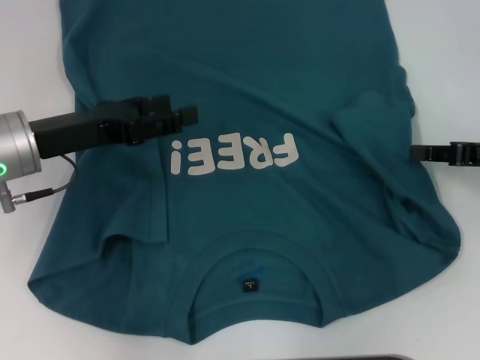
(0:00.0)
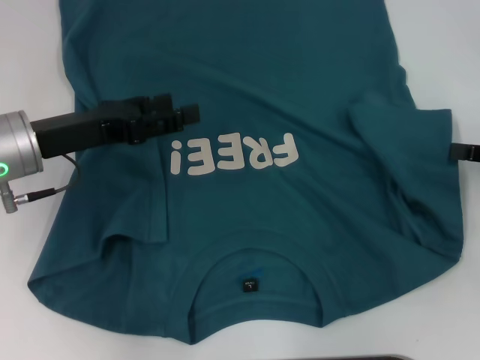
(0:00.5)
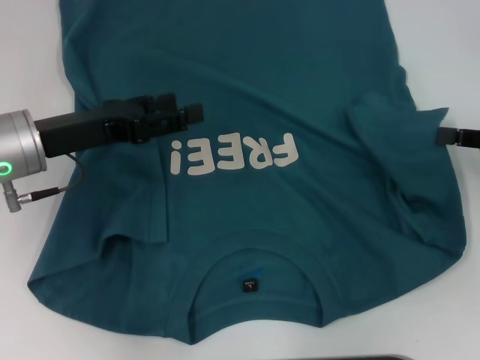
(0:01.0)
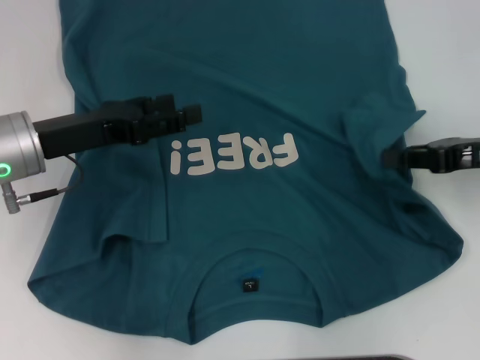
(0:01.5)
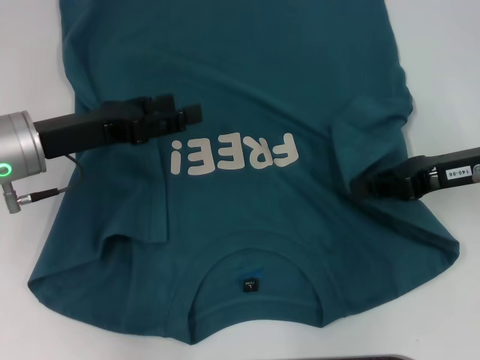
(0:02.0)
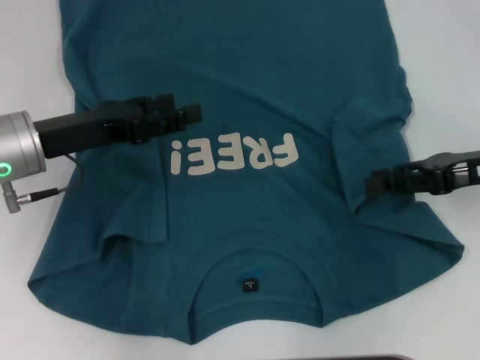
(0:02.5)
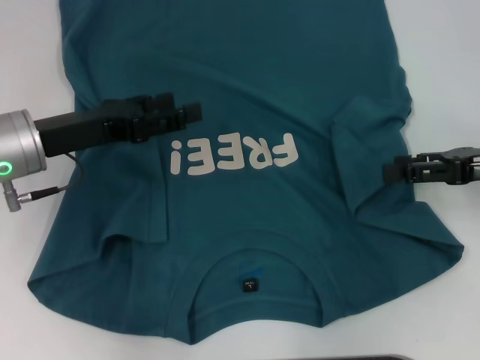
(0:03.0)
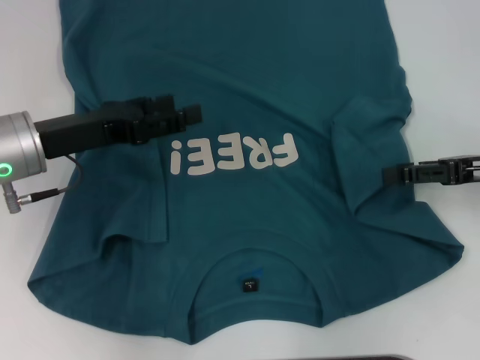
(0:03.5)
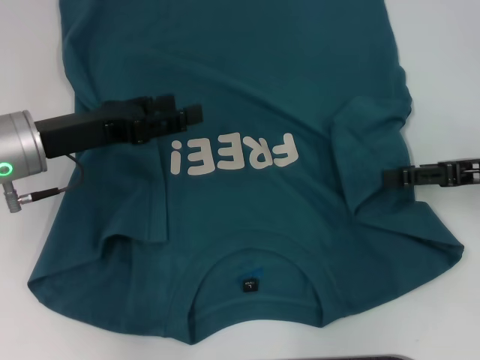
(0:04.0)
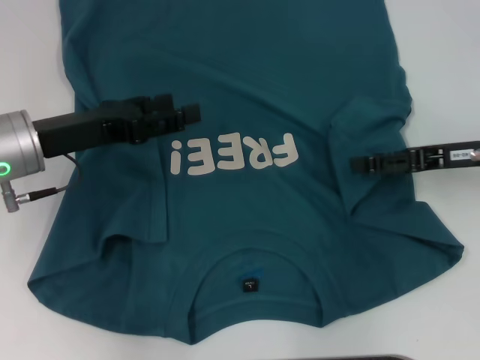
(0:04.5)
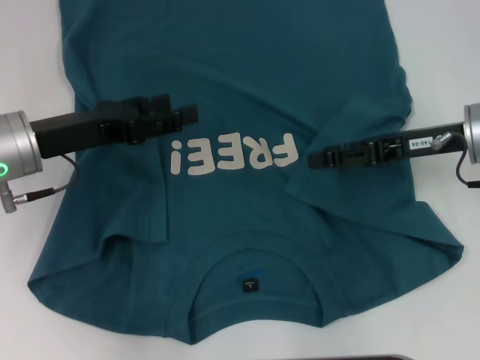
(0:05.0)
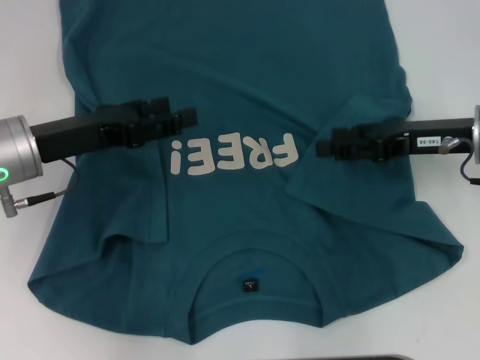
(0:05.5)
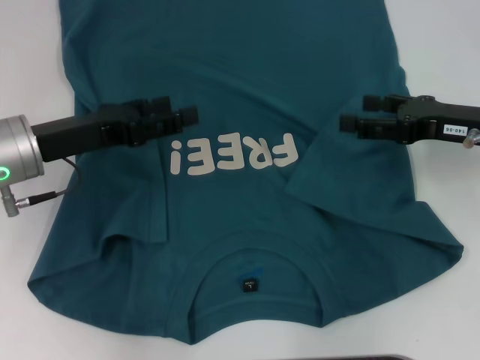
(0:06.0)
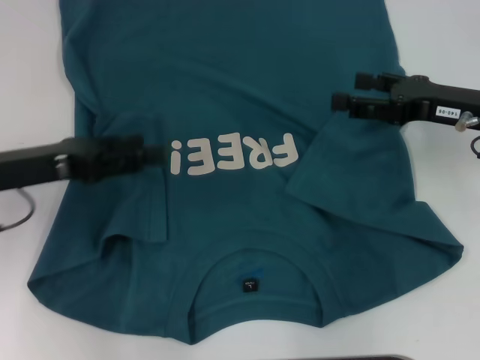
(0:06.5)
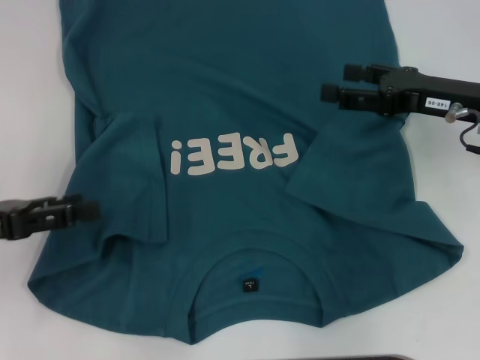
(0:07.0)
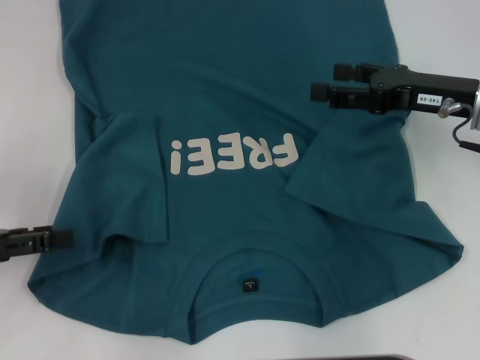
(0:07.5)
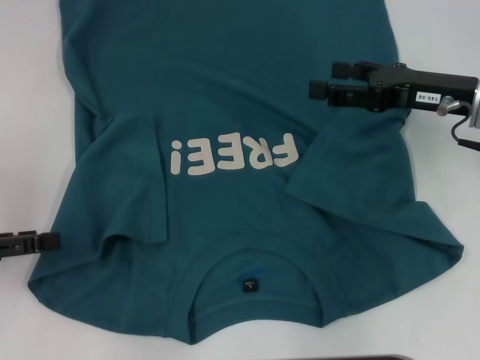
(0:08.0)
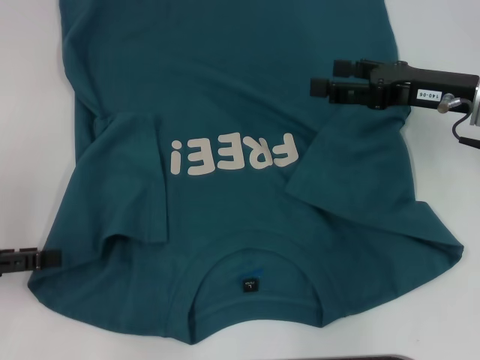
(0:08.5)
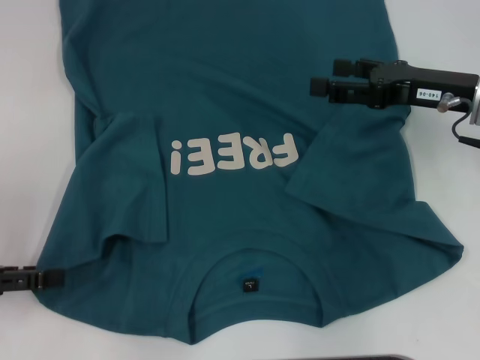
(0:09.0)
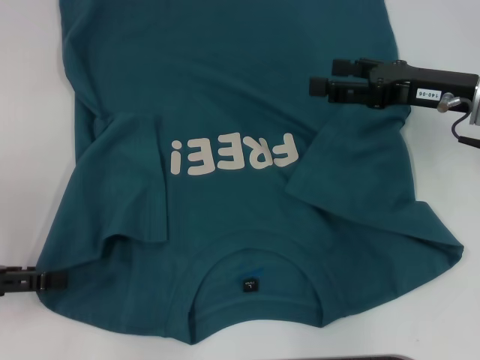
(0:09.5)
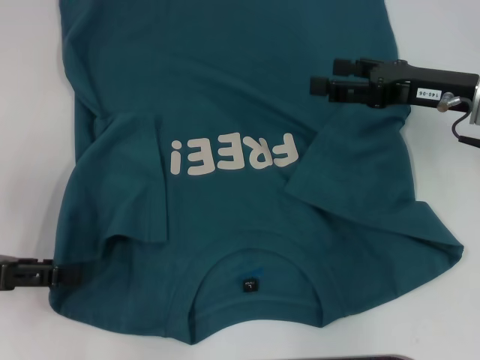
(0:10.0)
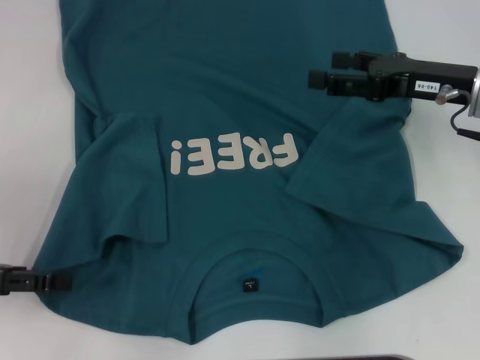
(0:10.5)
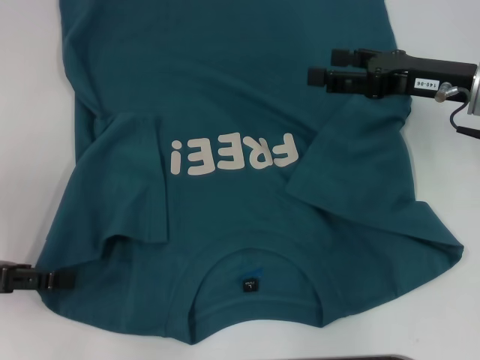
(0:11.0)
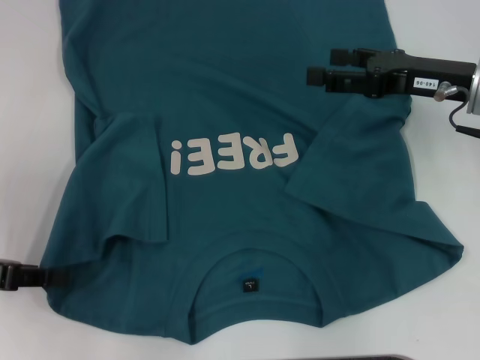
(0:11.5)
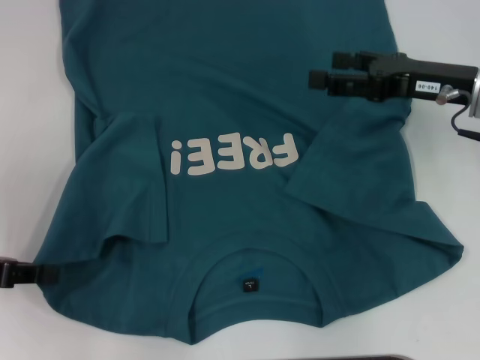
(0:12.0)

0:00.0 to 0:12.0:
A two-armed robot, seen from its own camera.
Step, 0:00.0 to 0:05.5: Fold the bottom right sleeve to the right.
0:00.0 to 0:02.0: The right gripper travels to the left by roughly 5 cm.
0:02.0 to 0:04.0: The right gripper opens up.
0:06.0 to 0:08.0: The left gripper is displaced to the left and backward by about 15 cm.
0:08.0 to 0:10.0: There are only small adjustments of the grippers.
0:10.0 to 0:12.0: The left gripper closes its fingers.

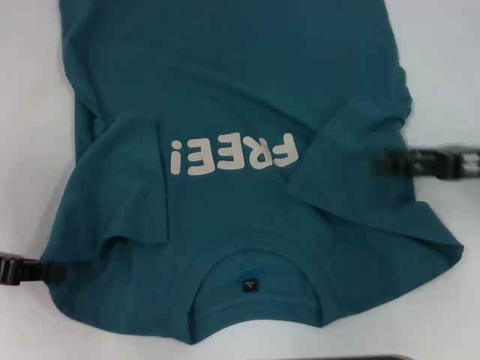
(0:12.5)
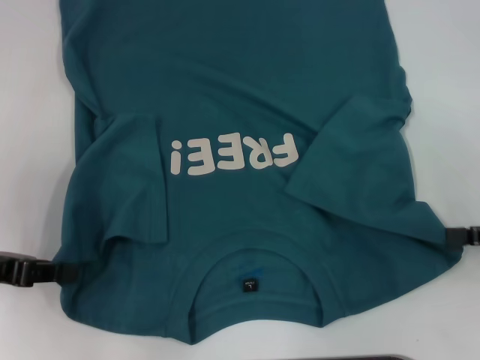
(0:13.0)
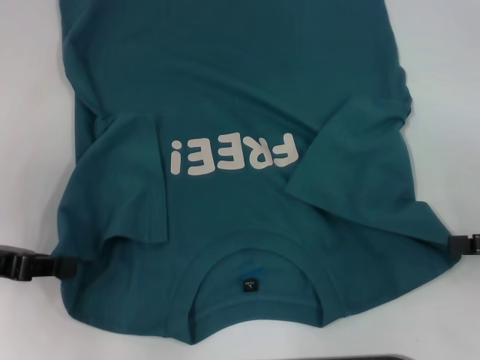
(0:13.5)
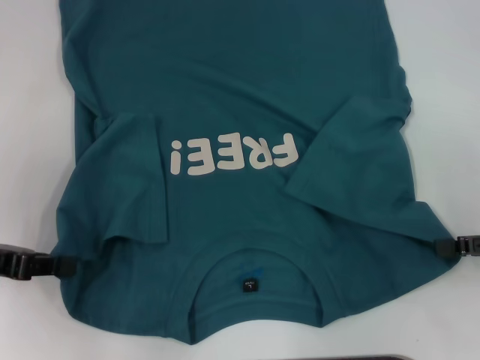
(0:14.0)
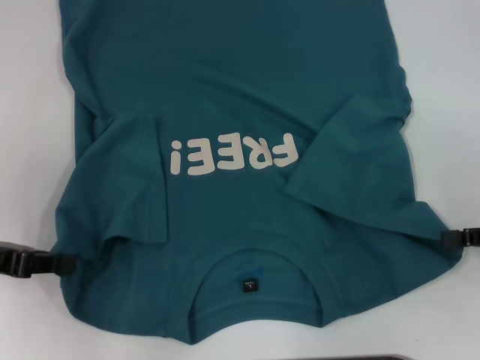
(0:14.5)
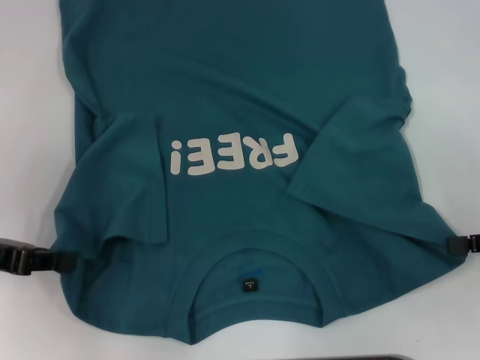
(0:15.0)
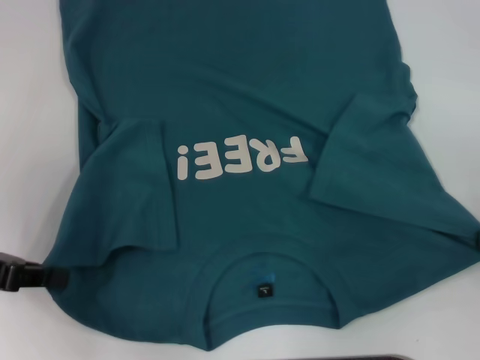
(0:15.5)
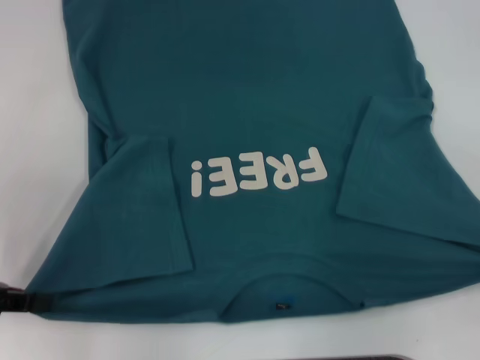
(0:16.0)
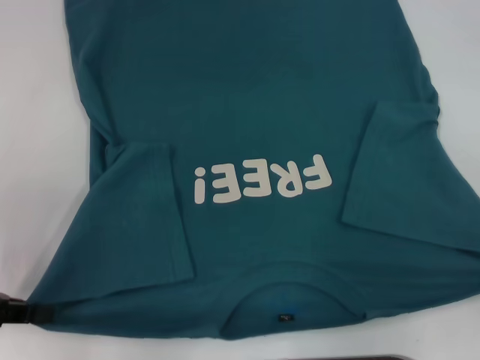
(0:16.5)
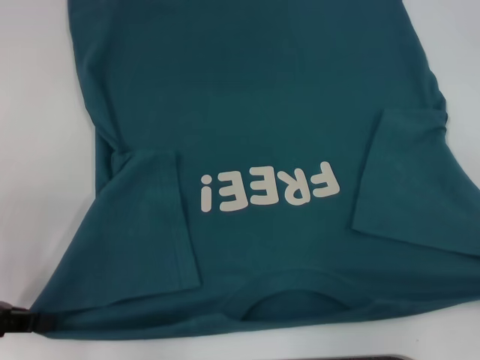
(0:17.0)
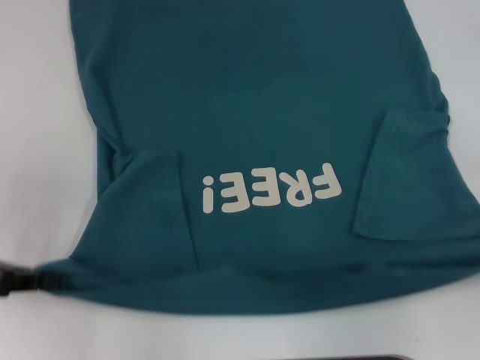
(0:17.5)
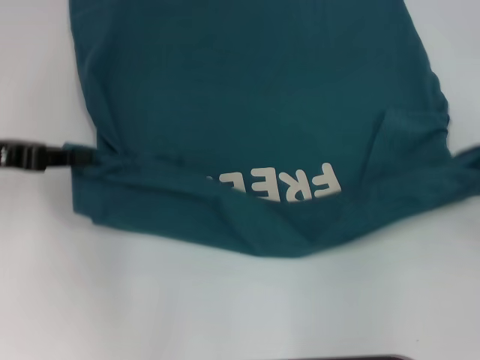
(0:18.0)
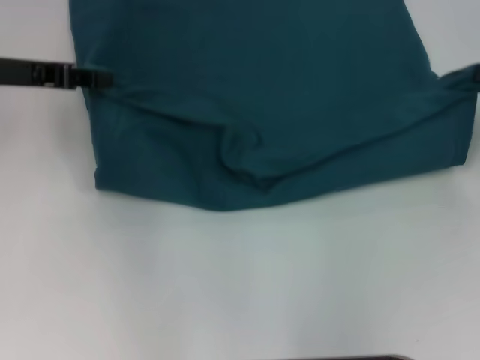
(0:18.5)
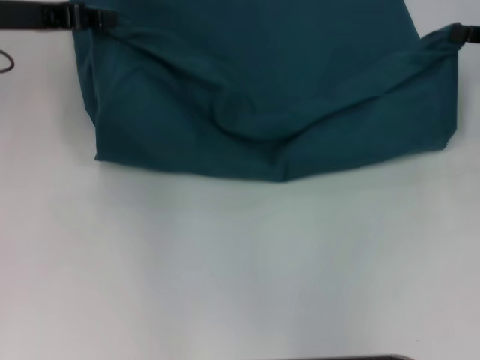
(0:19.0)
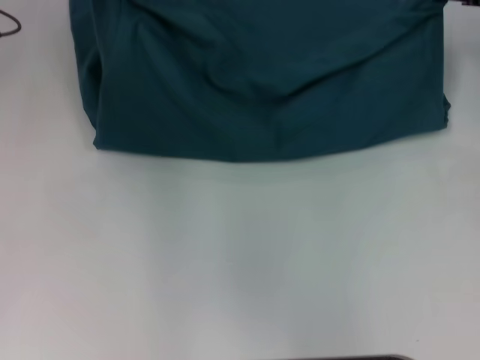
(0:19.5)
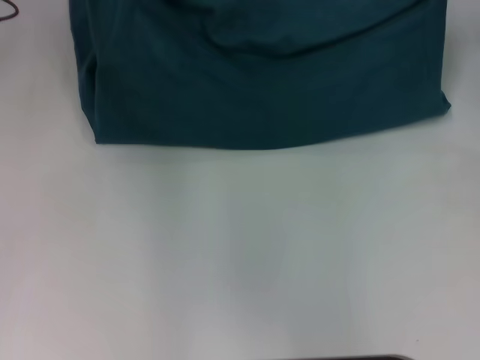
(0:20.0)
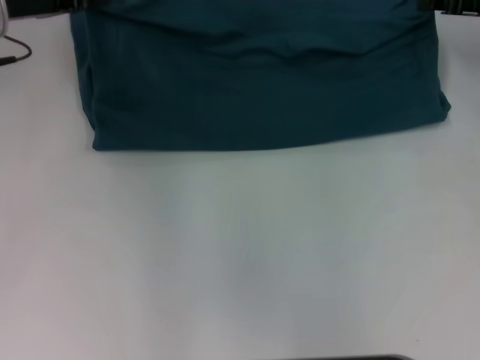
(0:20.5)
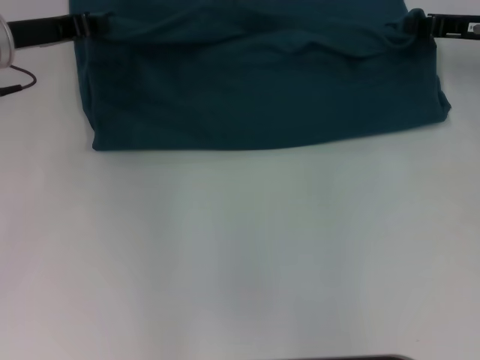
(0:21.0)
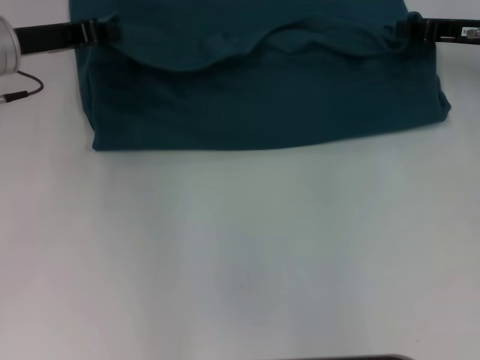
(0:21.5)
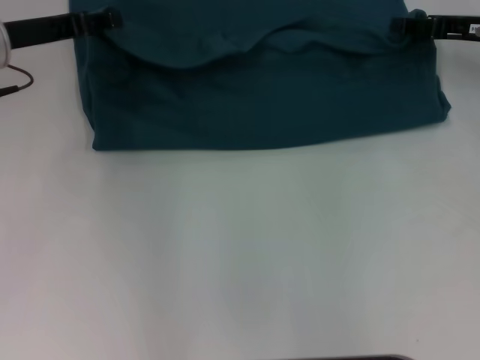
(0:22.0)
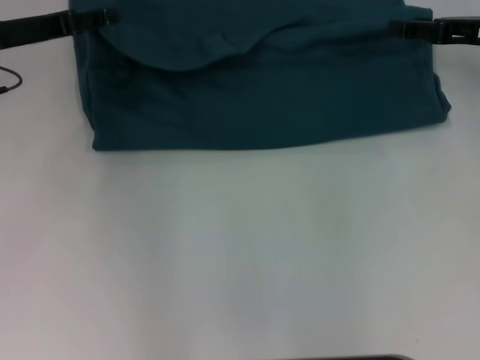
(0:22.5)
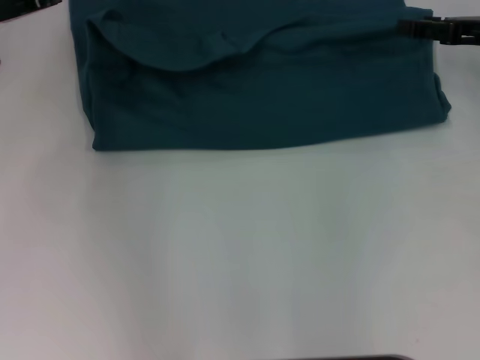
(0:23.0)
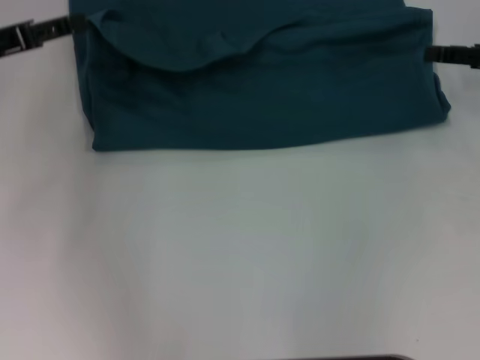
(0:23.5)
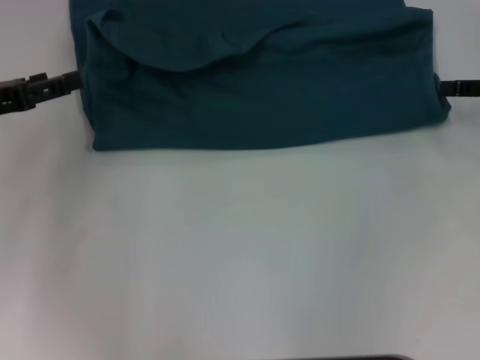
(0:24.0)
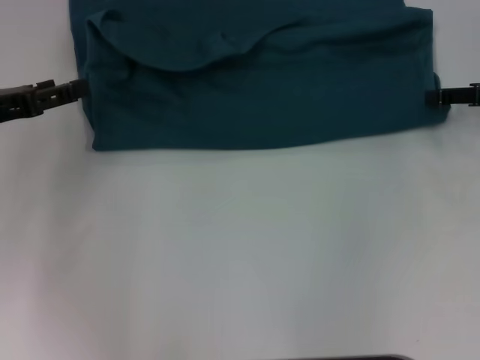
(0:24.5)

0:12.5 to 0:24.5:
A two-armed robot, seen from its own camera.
Step, 0:12.5 to 0:15.0: Grab the bottom right corner with your right hand.
Step, 0:15.5 to 0:23.0: Fold the clothes to the left.
Step, 0:15.5 to 0:23.0: Fold the clothes to the right.
0:12.5 to 0:14.5: The right gripper shifts approximately 10 cm to the right and backward, and closes its fingers.
0:14.5 to 0:16.5: The right gripper travels backward by about 10 cm, and closes up.
0:16.5 to 0:18.5: The right gripper is displaced forward by some 15 cm, while the left gripper travels forward, upward and to the right by about 20 cm.
0:18.5 to 0:20.5: The left gripper shifts approximately 5 cm forward. Meanwhile the right gripper heads forward and to the left, covering about 10 cm.
0:20.5 to 0:22.5: The left gripper opens its fingers, while the right gripper opens.
0:22.5 to 0:24.5: The left gripper goes roughly 10 cm backward, while the right gripper changes place by about 5 cm.

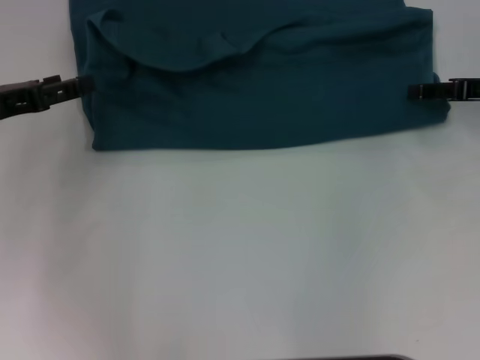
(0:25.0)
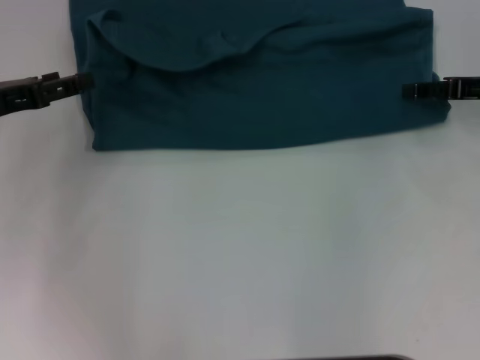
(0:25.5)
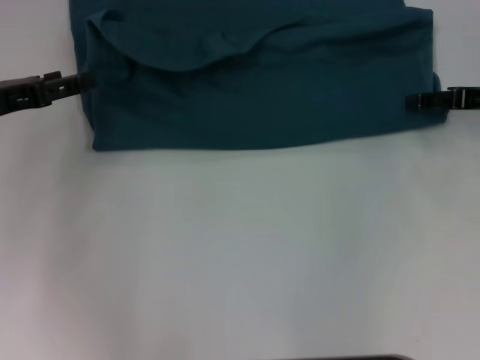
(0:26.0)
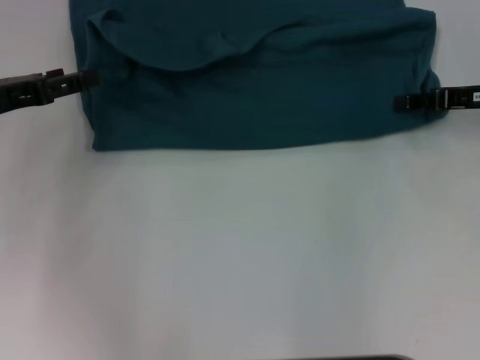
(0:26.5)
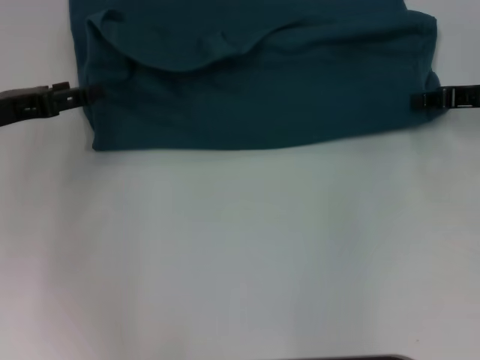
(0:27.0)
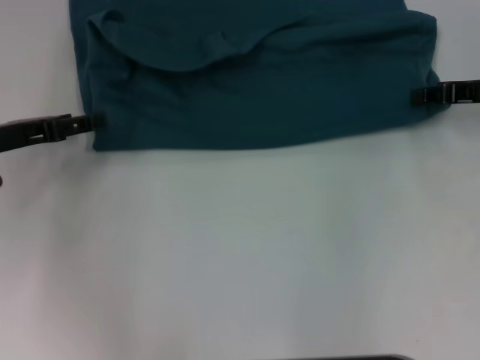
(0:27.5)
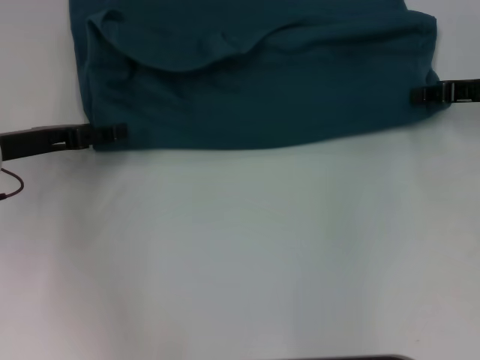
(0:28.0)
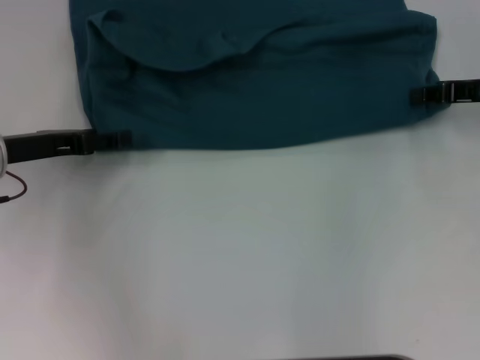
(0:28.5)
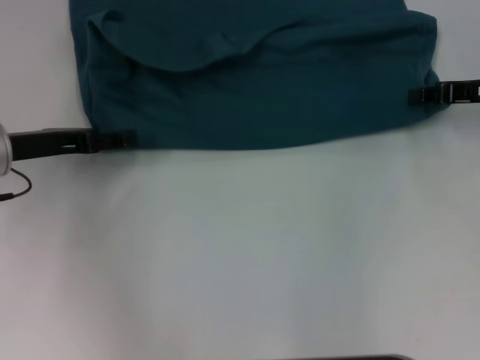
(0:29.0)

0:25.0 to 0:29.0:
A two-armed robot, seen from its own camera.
0:25.0 to 0:27.0: The right gripper closes.
0:27.0 to 0:29.0: The grippers stay close to where they were, moving slightly.
